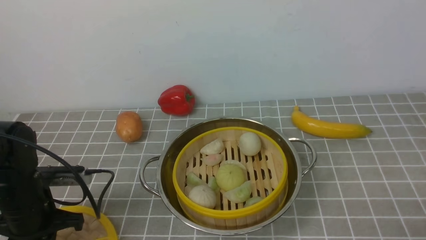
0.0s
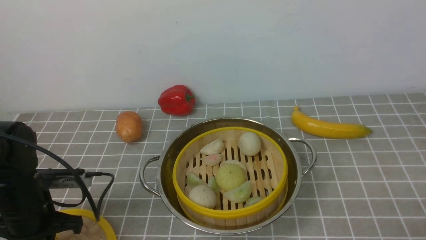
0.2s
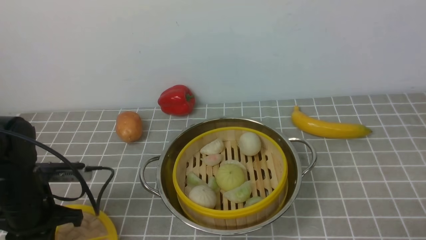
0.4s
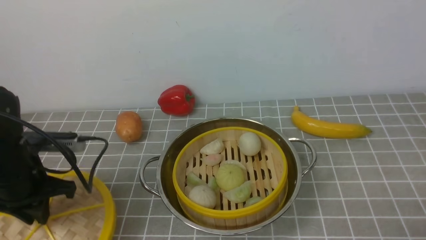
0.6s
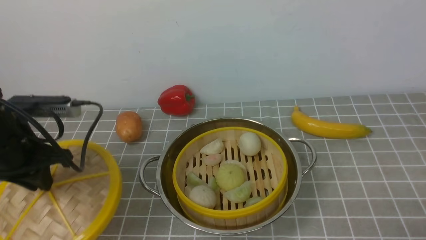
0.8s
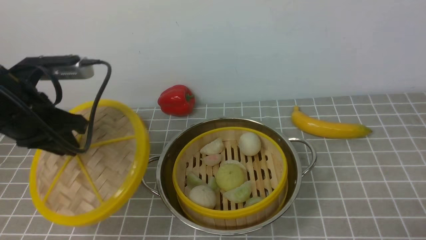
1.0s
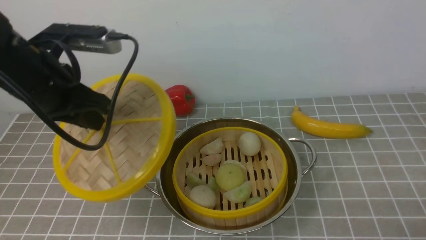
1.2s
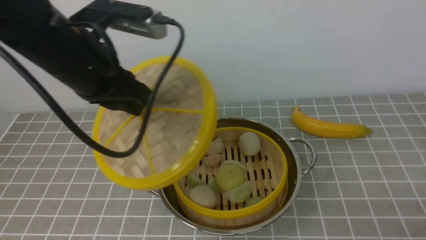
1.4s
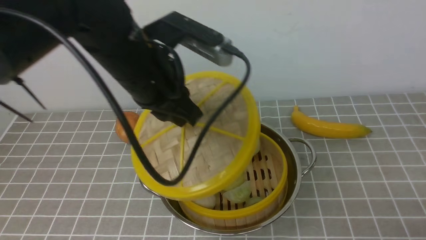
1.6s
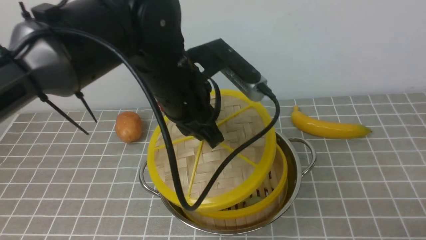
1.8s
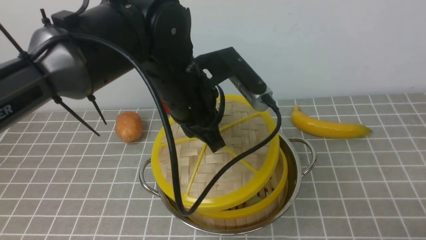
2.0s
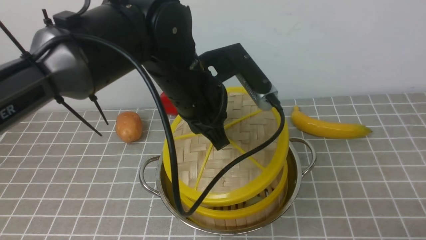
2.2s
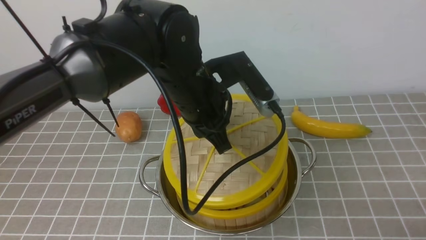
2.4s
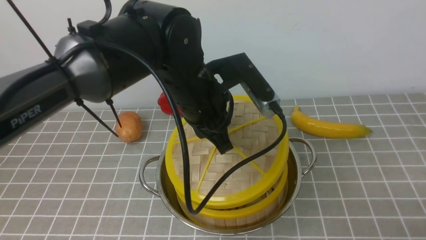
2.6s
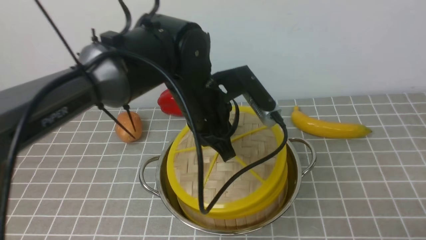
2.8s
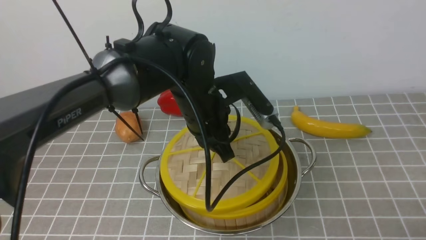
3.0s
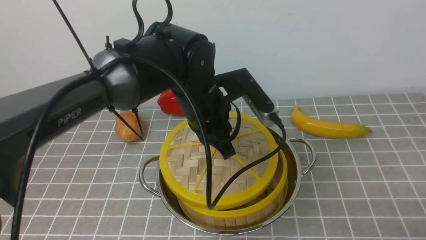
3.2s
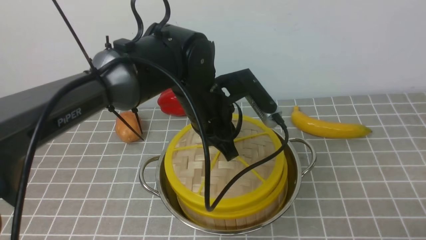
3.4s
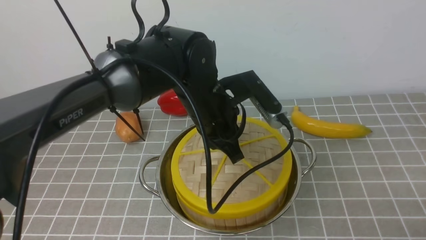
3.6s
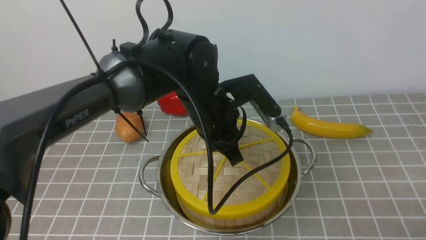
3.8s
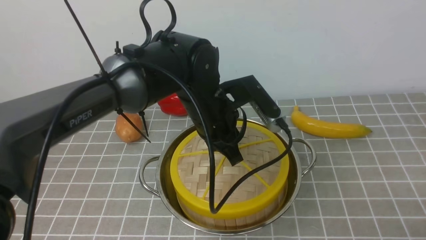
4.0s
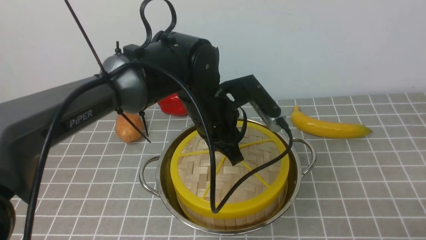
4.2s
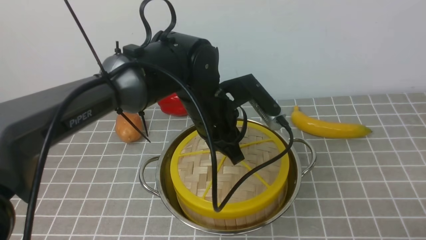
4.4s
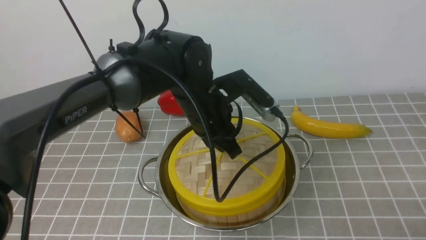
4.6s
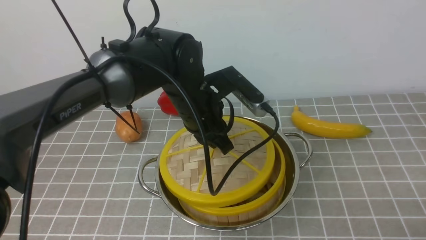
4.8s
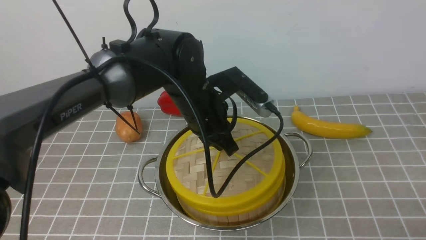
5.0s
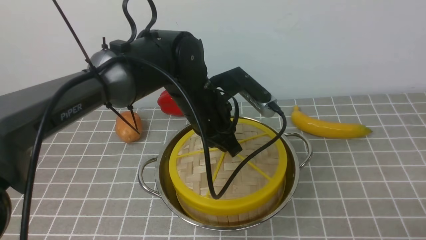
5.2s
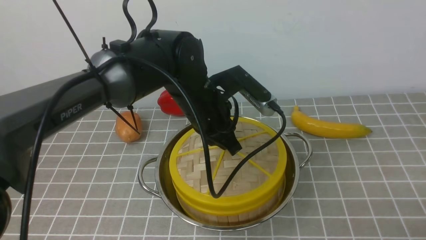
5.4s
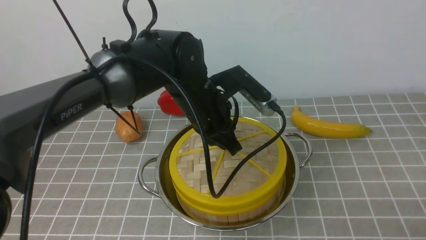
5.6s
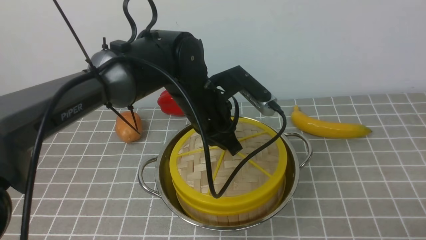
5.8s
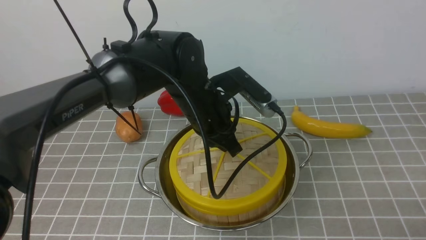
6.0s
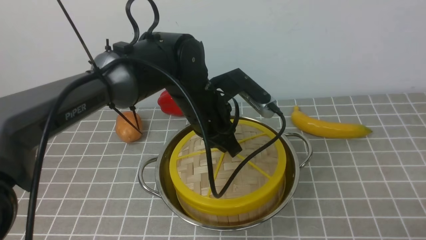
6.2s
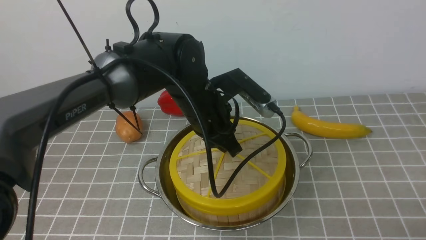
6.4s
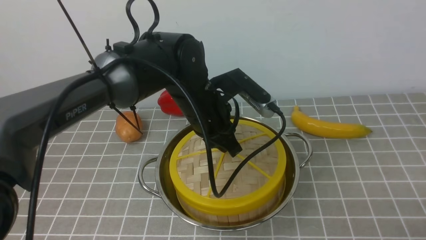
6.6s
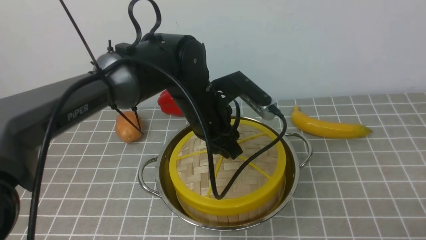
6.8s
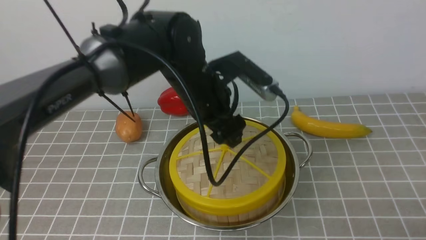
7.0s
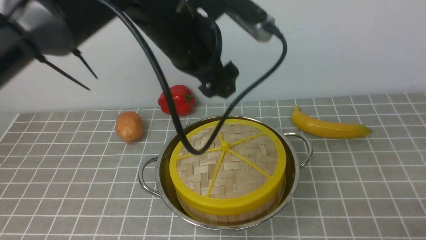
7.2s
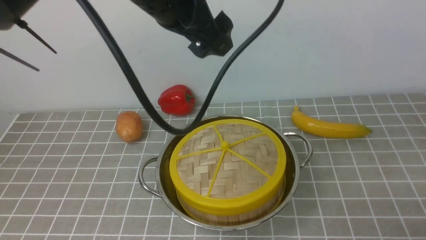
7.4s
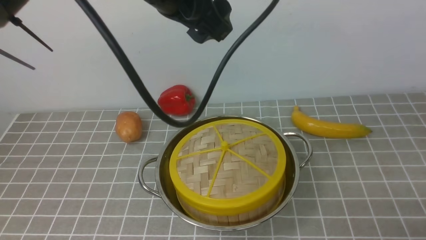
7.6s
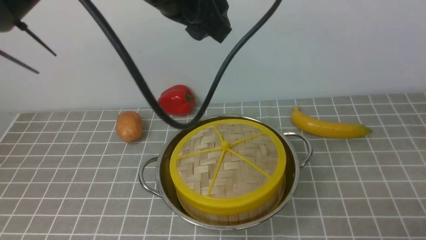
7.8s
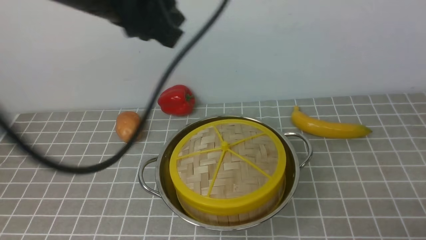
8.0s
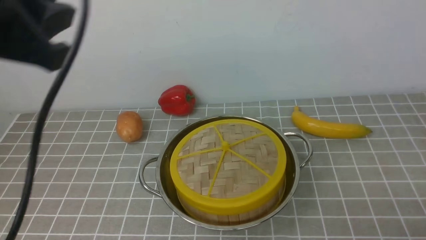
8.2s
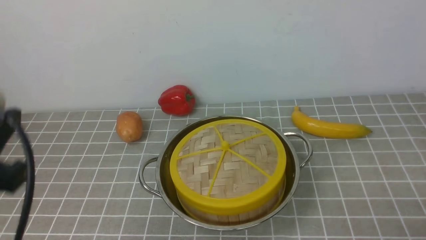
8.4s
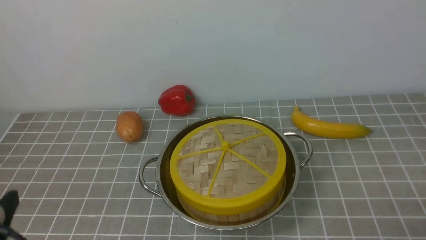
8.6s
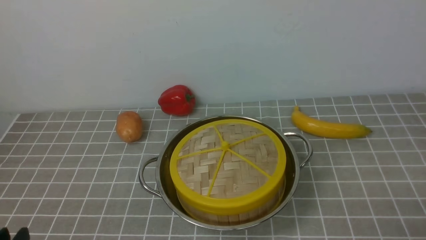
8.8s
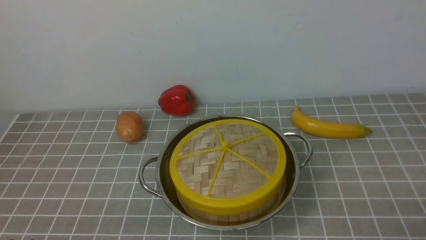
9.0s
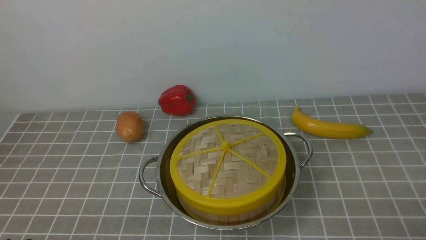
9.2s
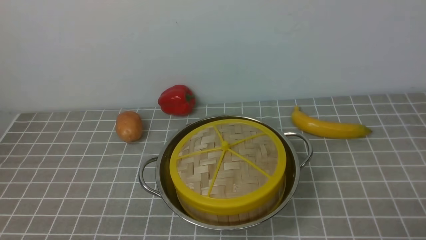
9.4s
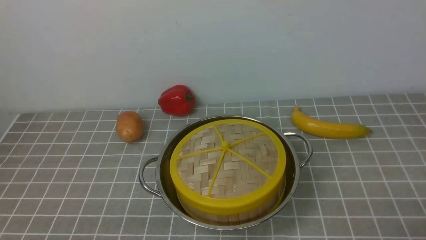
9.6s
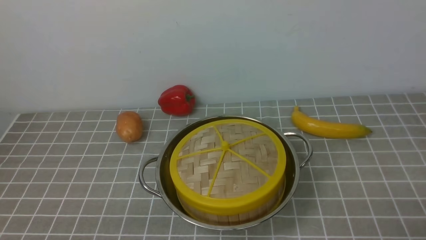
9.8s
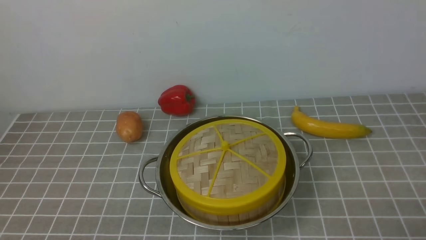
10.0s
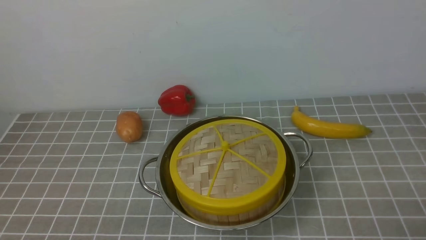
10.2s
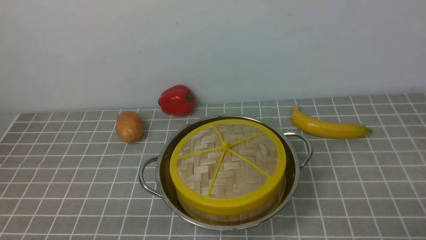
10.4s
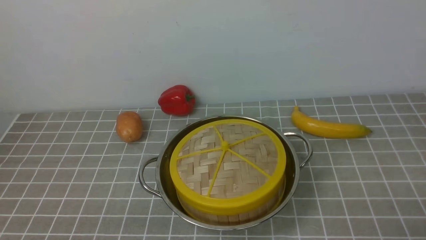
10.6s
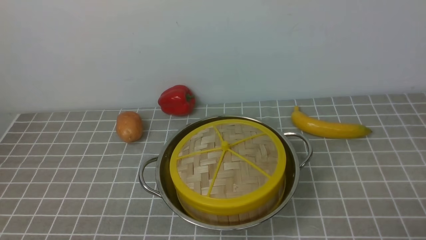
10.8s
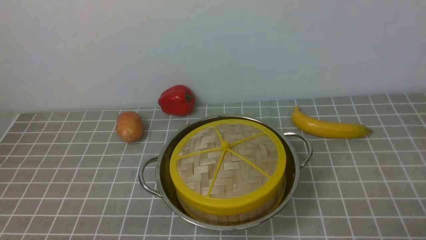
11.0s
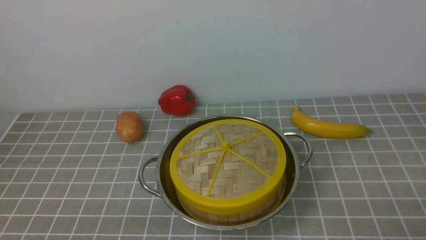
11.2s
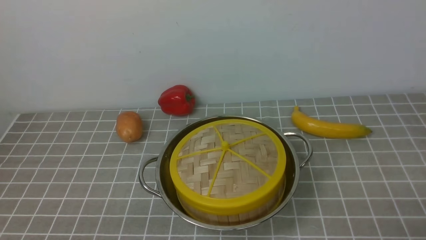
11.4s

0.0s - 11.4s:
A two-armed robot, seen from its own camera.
Task of the whole recording: place the steamer in the pot on the grey tablecloth, and put the lid on the steamer.
Step, 0.8s - 7.0s: use the left arm to place the steamer lid on the steamer.
0.0s - 1.4s: The left gripper moves upward and to the right, approximately 25 cm.
1.4s - 2.8s: The left gripper heads to the right and downward, covering about 15 cm.
2.8s - 5.6s: The grippers move only a little.
5.6s - 7.2s: The left gripper moves upward, roughly 10 cm, and opens up.
7.2s - 8.6s: The left gripper heads backward and to the left, covering some 35 cm, and closes.
8.6s - 10.0s: The left gripper travels downward by some 10 cm.
10.0s - 11.4s: The two grippers keep their place.

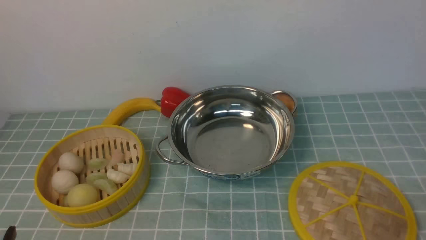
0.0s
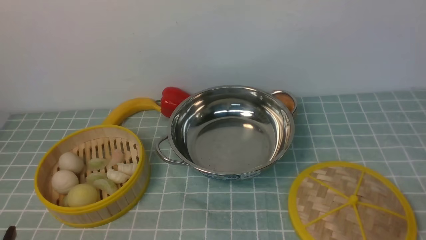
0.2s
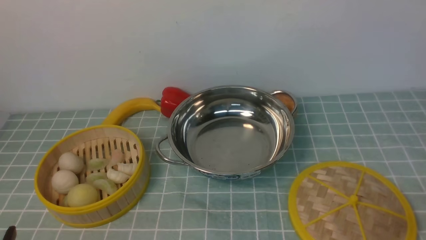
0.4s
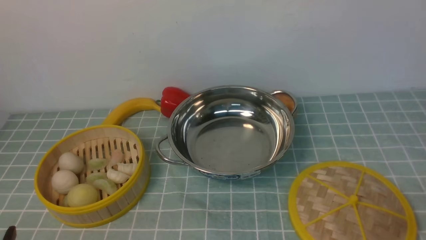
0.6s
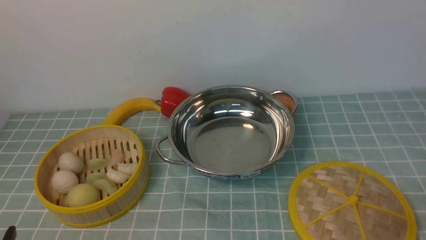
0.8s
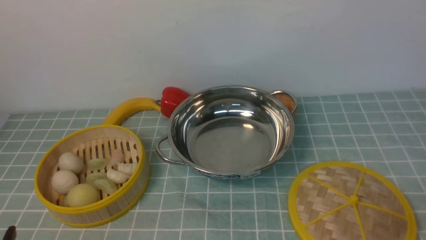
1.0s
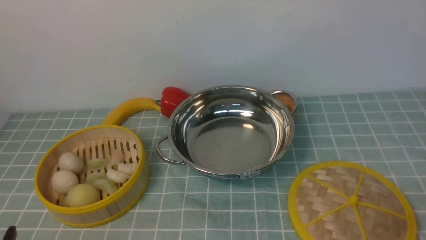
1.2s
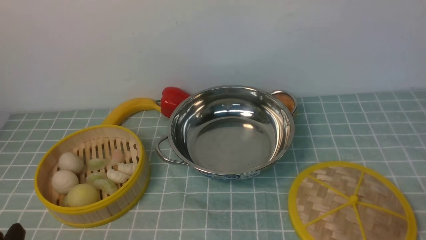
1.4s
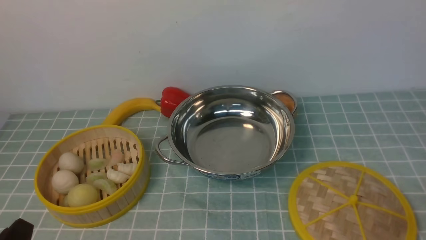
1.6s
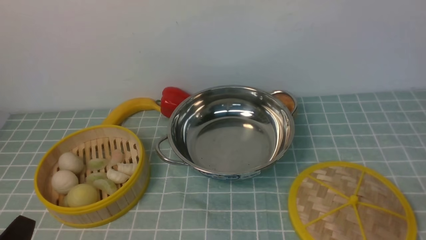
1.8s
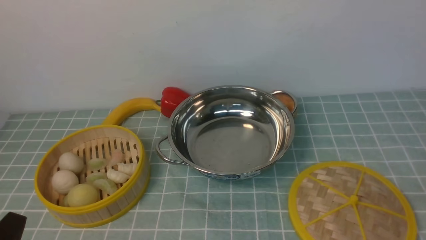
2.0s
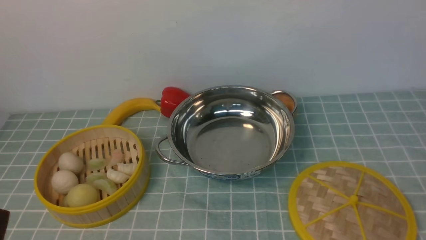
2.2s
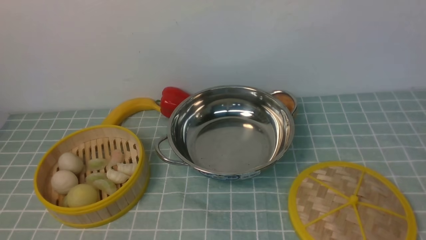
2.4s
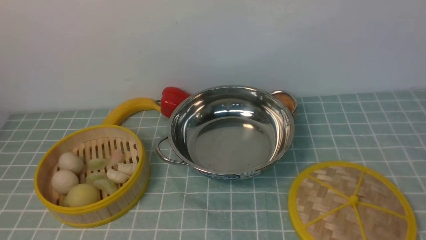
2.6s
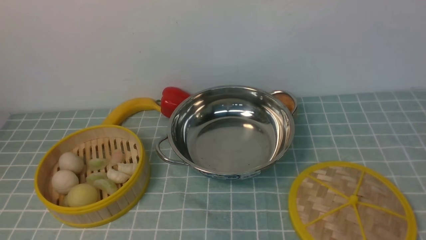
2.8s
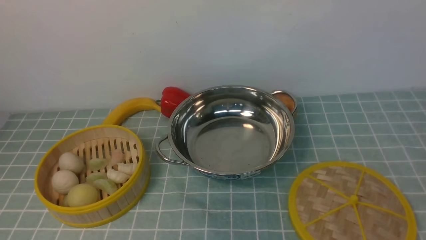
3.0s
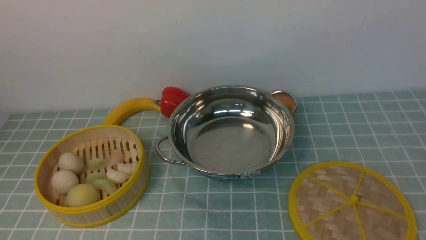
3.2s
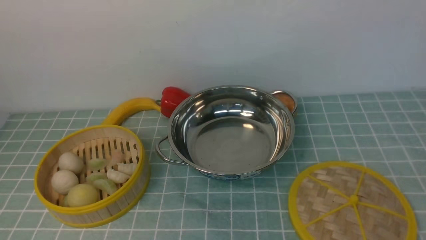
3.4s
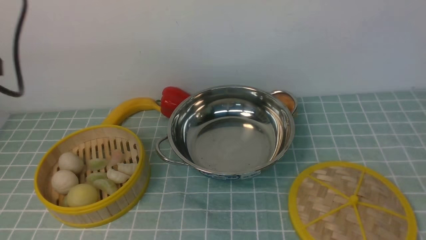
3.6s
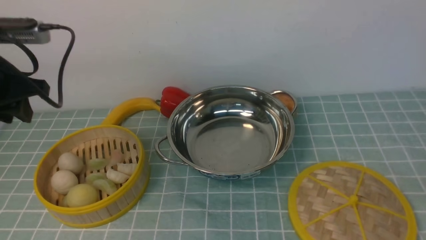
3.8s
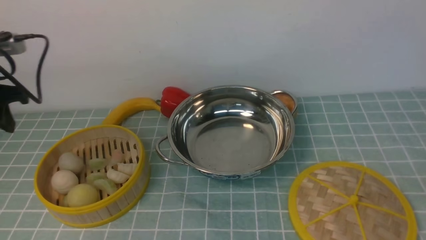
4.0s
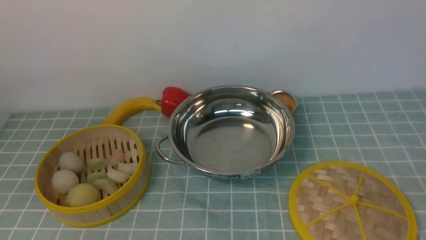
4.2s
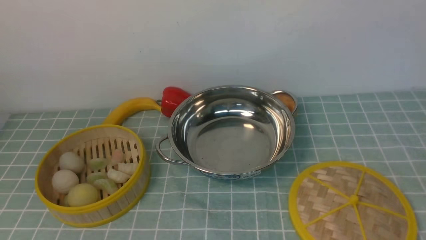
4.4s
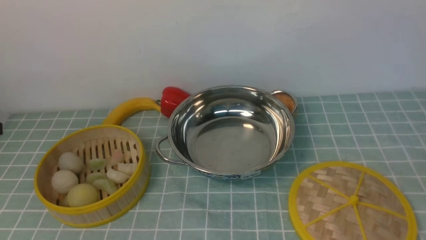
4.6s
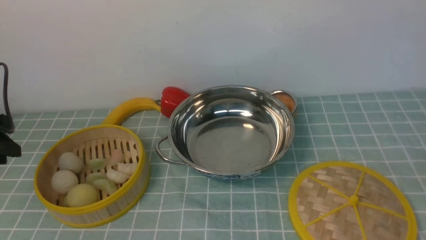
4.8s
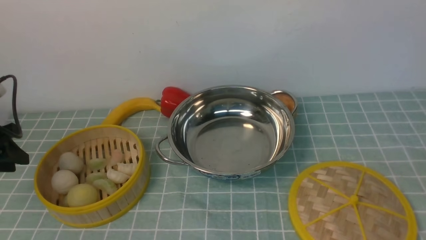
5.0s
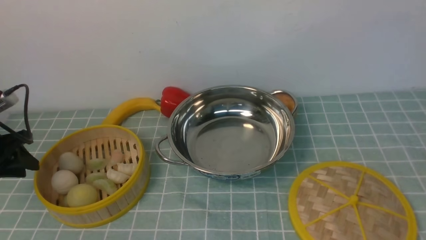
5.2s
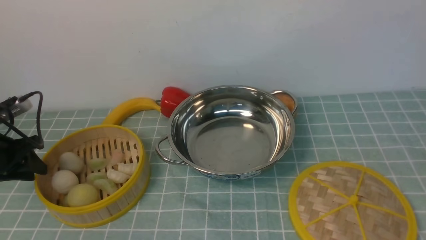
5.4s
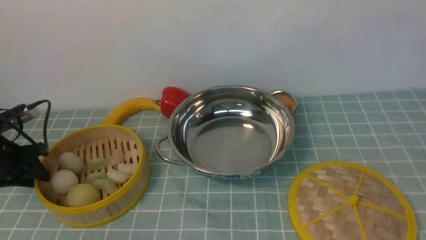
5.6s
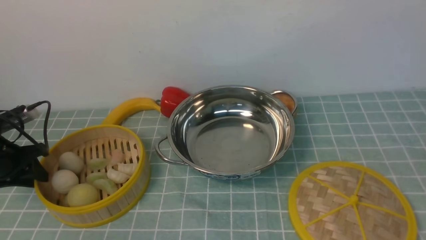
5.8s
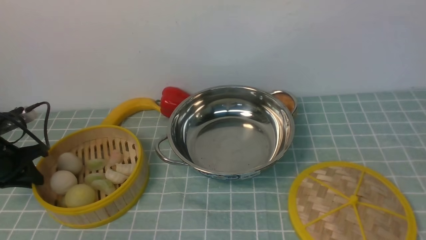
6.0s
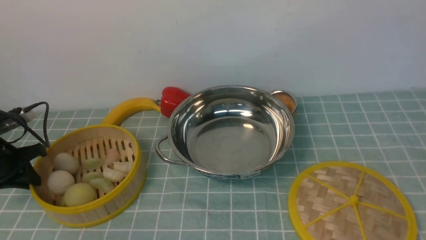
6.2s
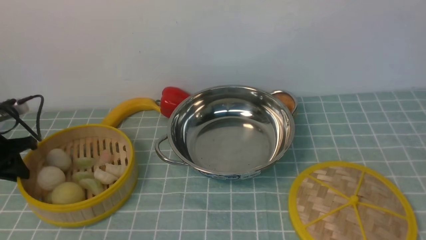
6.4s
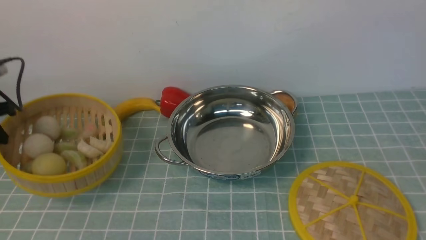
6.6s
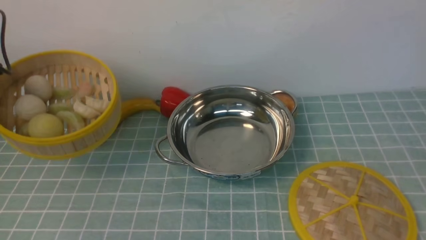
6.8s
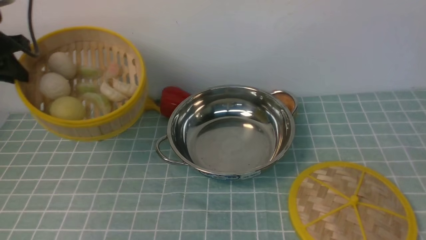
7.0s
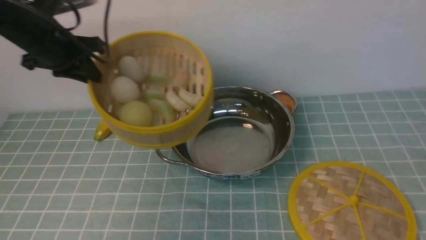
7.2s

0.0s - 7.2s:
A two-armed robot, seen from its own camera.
Task of the whole recording: place the steamer in the pot on the blue tablecloth, and put the lid on the steamer.
Step, 0.0s - 6.8s: use the left arm to lift the steamer closest to it.
4.4s - 5.8s: The left gripper heads downward, covering approximately 15 cm.
5.8s - 7.2s: The left gripper travels to the right, upward and forward by some 25 cm.
